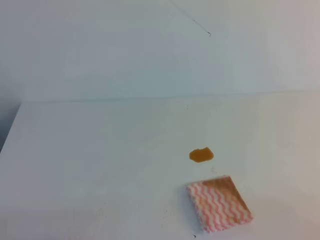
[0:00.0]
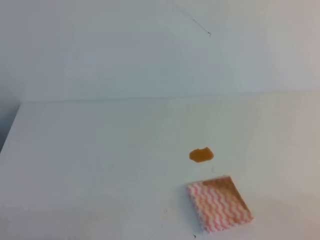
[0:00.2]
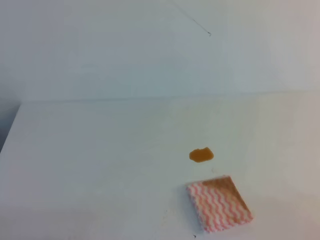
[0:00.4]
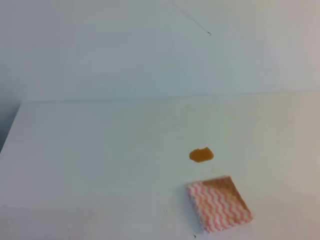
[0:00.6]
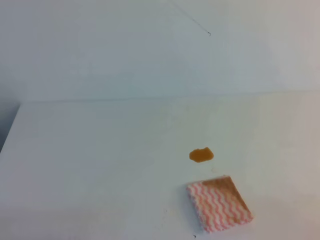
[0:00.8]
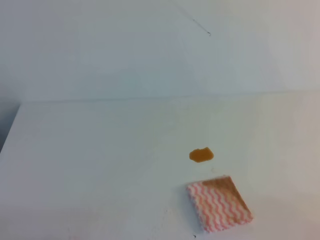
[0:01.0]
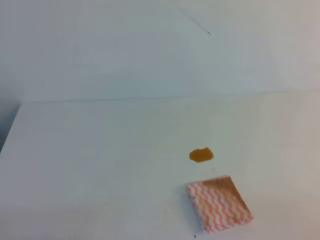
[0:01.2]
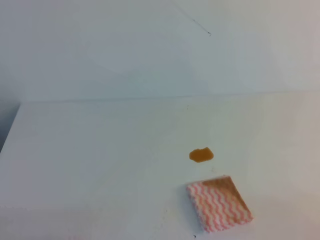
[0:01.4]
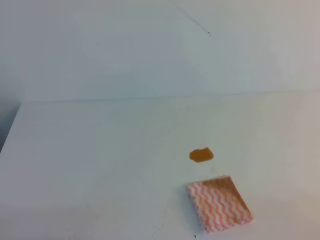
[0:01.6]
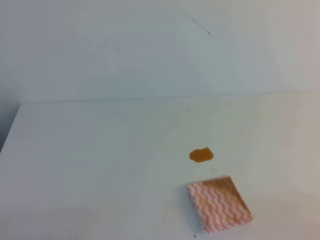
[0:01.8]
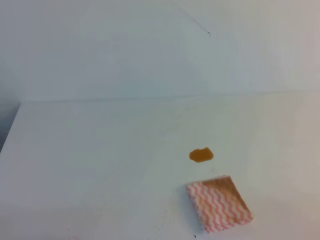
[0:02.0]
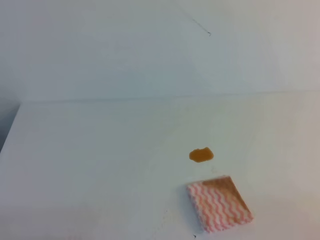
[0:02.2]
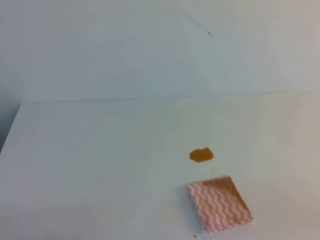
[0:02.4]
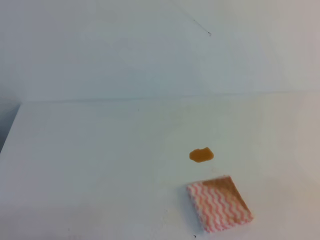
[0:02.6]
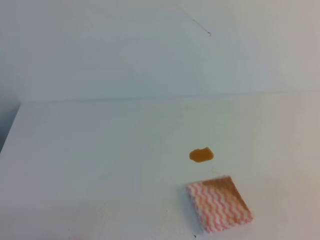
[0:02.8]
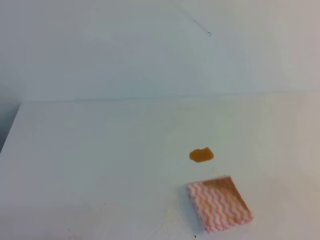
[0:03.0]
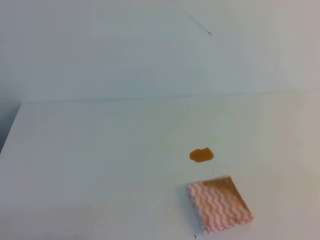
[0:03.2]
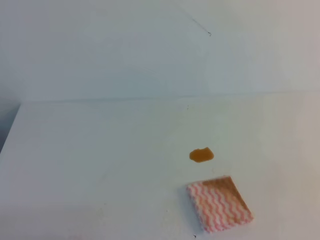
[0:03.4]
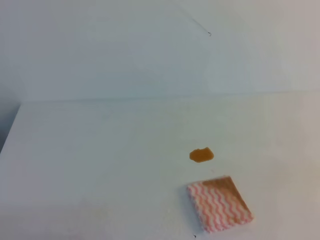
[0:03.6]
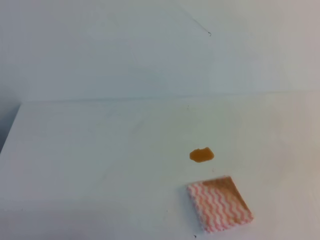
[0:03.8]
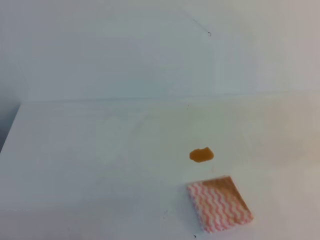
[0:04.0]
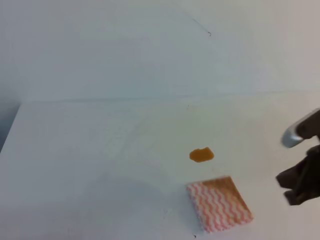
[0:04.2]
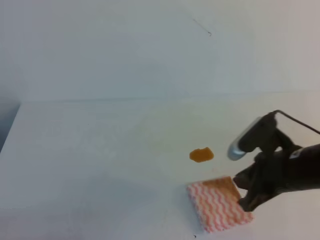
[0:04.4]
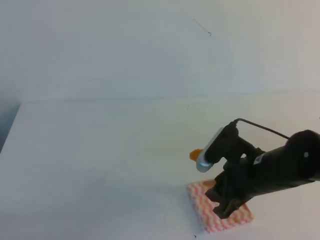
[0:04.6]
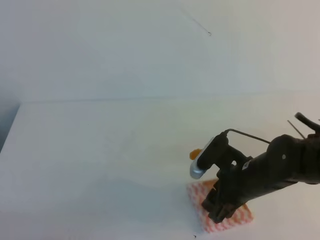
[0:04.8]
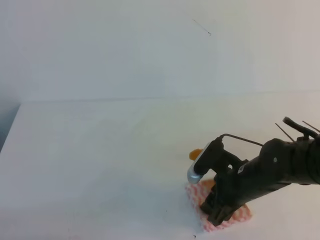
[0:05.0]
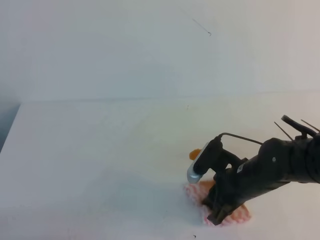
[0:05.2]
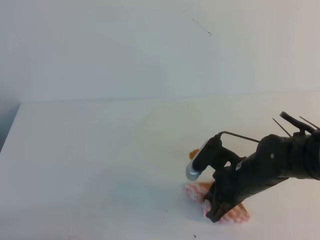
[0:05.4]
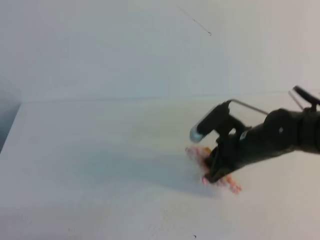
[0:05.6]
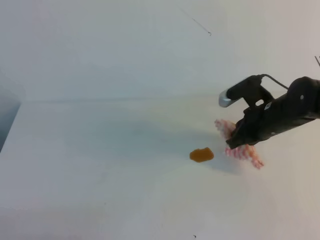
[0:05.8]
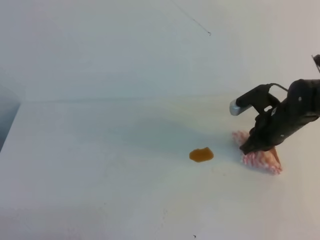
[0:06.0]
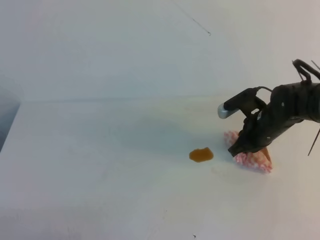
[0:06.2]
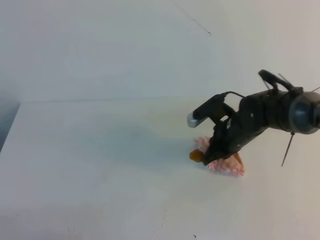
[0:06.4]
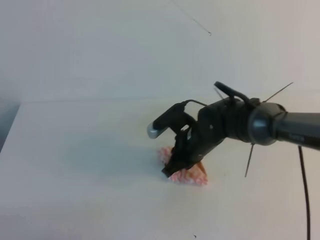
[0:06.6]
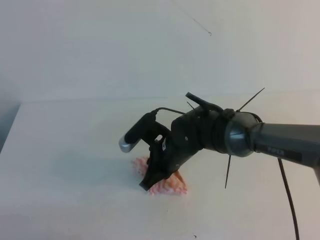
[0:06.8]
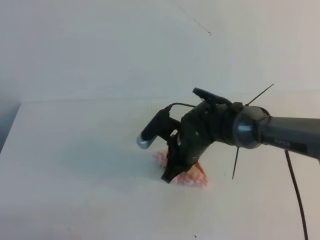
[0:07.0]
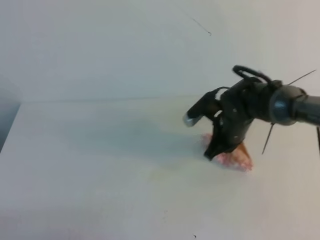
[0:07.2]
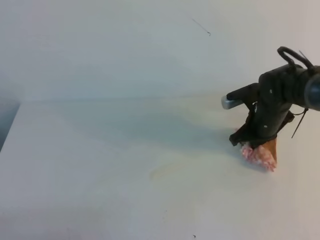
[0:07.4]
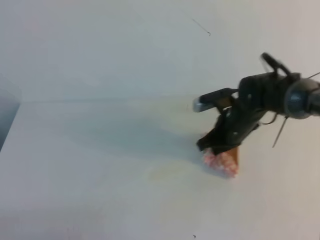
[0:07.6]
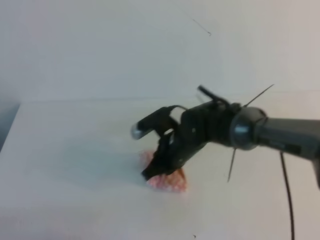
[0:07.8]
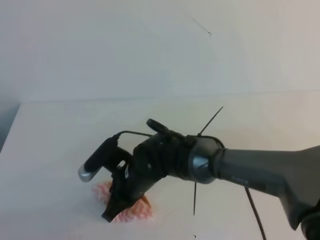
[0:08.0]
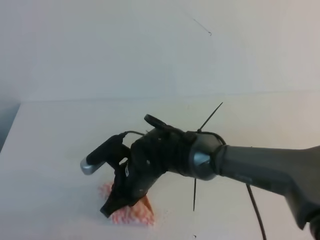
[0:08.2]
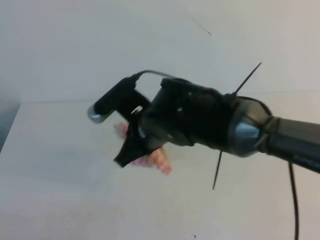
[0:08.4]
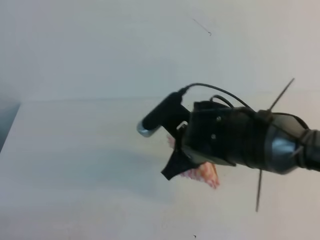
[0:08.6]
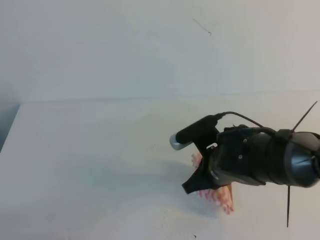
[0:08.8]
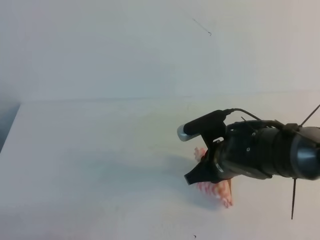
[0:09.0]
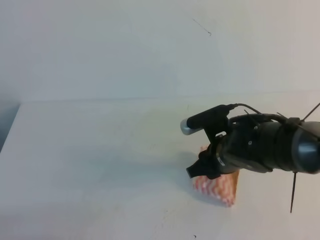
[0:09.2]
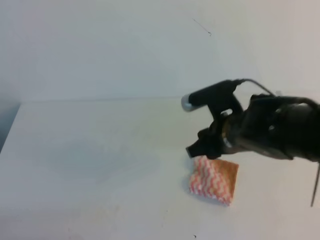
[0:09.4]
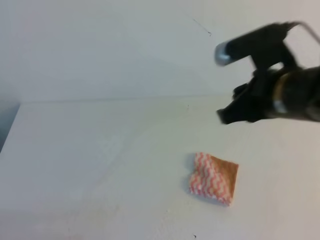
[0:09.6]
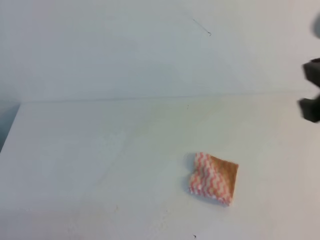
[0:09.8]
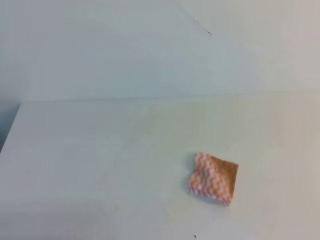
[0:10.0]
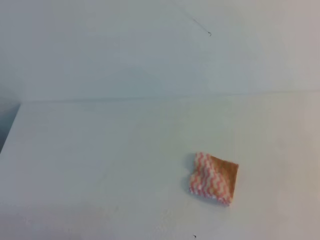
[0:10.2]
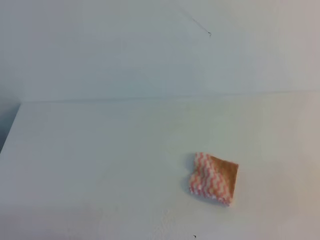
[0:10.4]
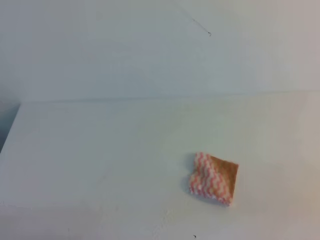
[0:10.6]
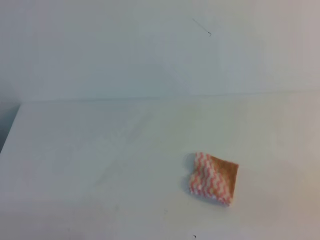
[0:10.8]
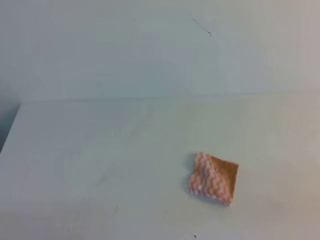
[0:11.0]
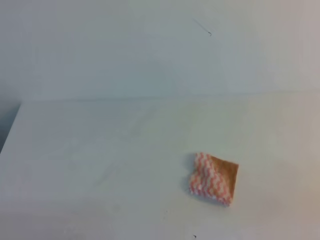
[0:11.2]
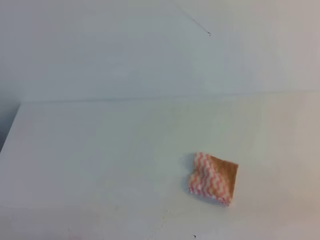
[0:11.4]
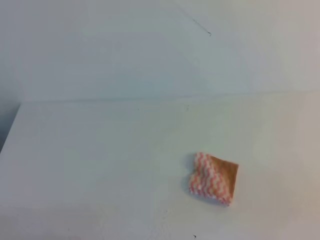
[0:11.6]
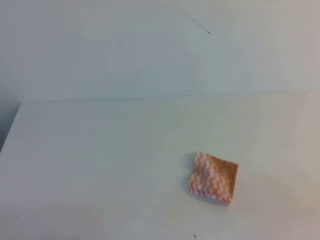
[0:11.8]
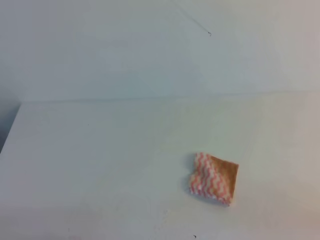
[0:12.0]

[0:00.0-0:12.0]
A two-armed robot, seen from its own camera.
0:00.0 to 0:01.6: Both grippers stay about where they are.
0:03.0 to 0:04.4: The right gripper moves forward and to the left, about 25 cm.
0:04.4 to 0:06.0: The right gripper heads forward, covering some 15 cm, and opens, then closes once more.
0:06.0 to 0:07.6: The right gripper goes some 10 cm to the left.
0:07.6 to 0:09.0: The right gripper heads backward, covering some 10 cm, and goes to the left and returns, some 15 cm each way.
0:09.0 to 0:10.4: The right gripper shifts some 35 cm backward, to the right and upward, and opens, then closes again.

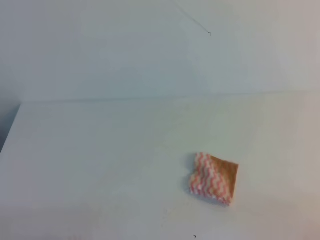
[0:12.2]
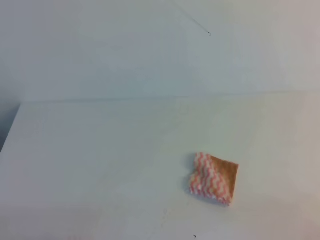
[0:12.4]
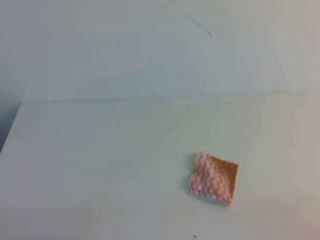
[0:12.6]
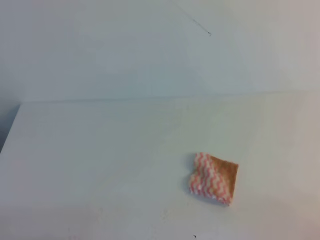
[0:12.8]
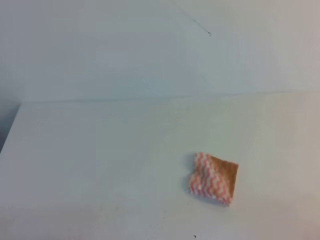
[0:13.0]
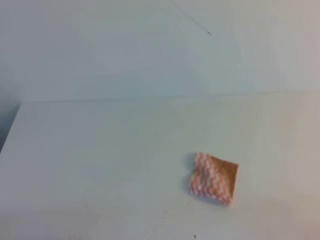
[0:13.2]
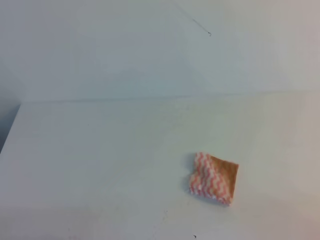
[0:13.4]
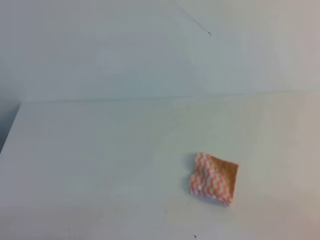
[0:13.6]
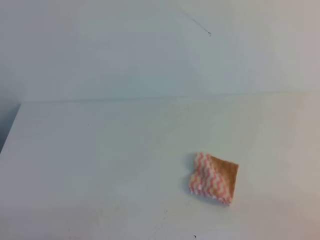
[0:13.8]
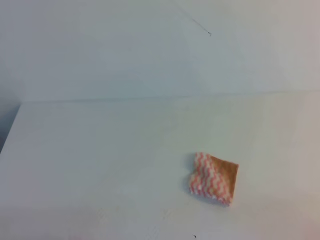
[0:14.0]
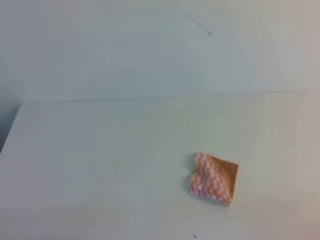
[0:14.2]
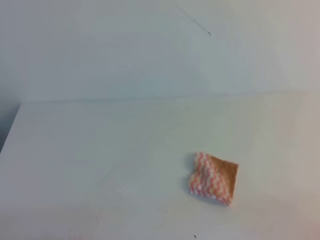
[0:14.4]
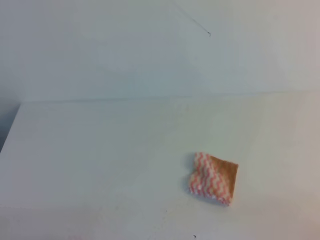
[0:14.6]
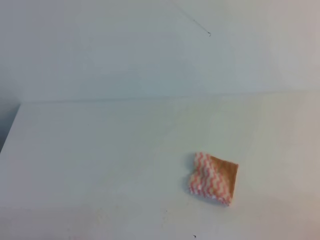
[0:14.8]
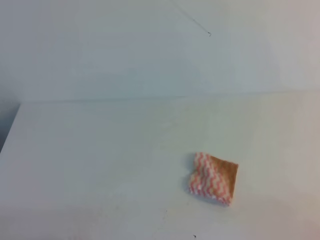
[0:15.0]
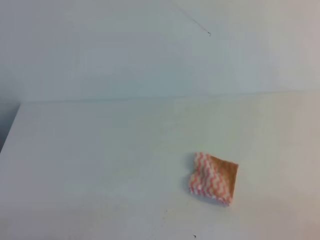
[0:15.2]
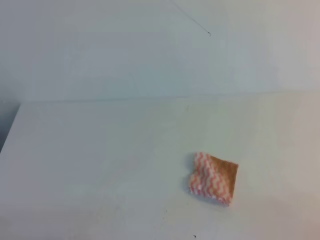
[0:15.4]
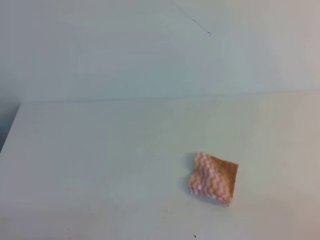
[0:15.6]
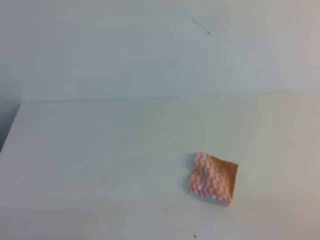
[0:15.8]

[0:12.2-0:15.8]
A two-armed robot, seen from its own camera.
0:14.0 to 0:15.8: Both grippers stay put.

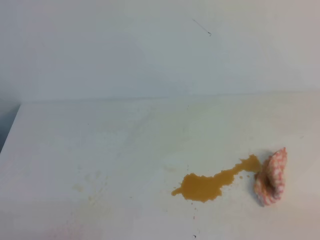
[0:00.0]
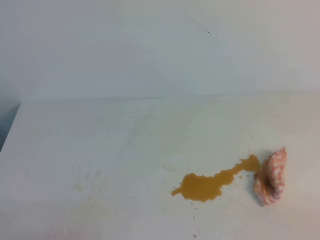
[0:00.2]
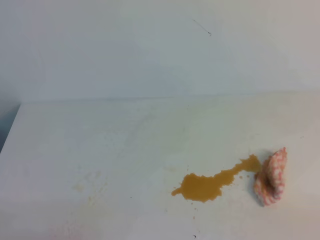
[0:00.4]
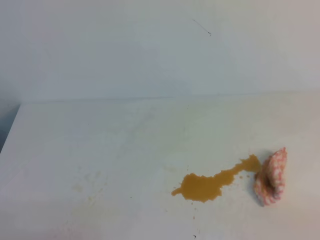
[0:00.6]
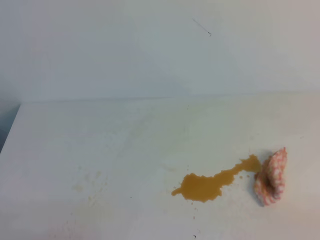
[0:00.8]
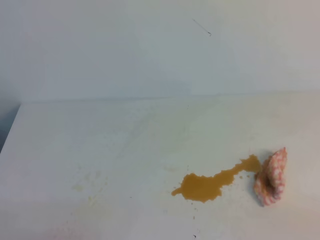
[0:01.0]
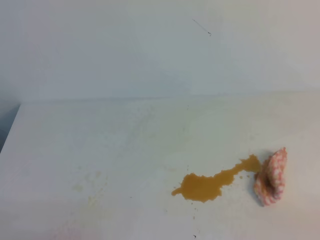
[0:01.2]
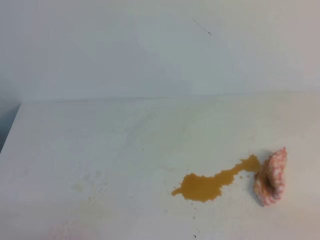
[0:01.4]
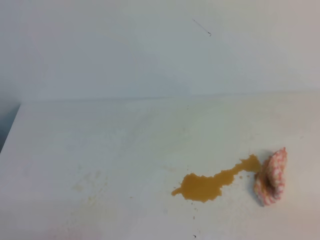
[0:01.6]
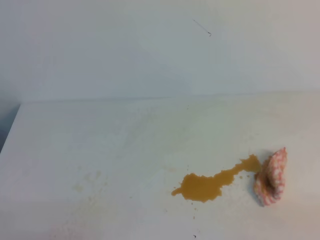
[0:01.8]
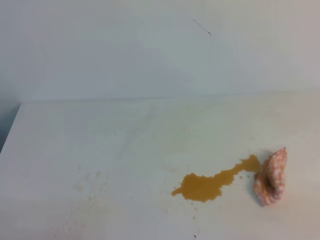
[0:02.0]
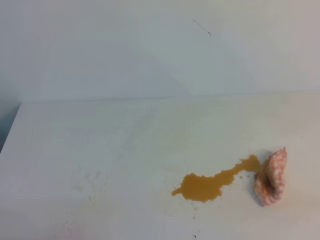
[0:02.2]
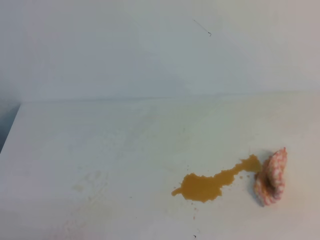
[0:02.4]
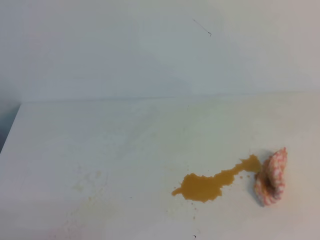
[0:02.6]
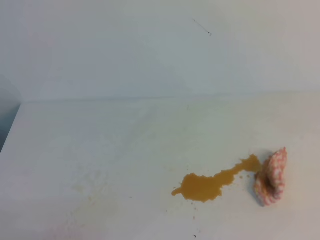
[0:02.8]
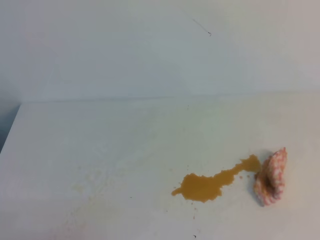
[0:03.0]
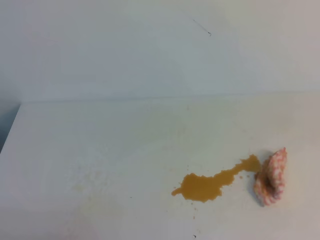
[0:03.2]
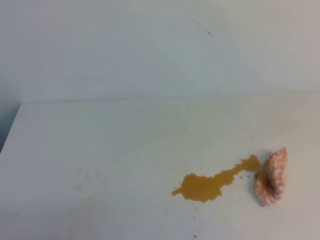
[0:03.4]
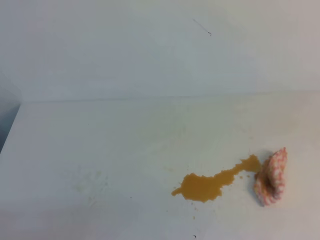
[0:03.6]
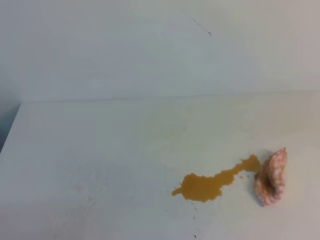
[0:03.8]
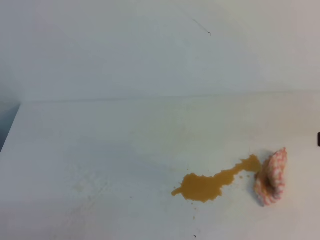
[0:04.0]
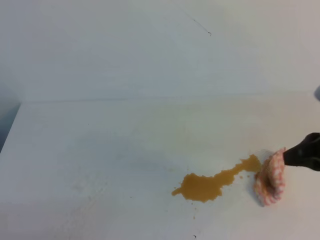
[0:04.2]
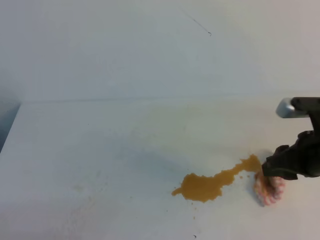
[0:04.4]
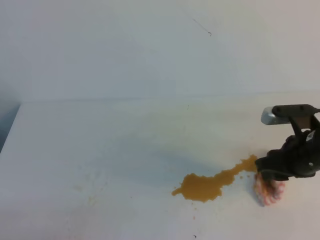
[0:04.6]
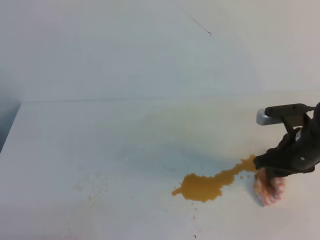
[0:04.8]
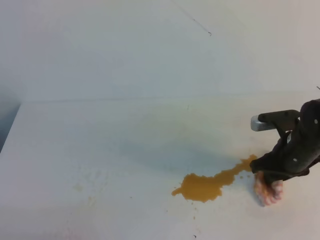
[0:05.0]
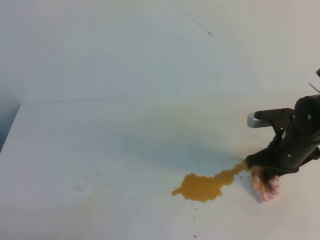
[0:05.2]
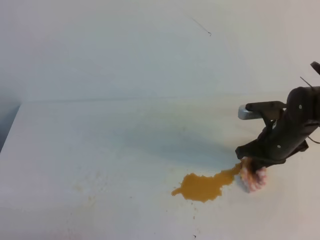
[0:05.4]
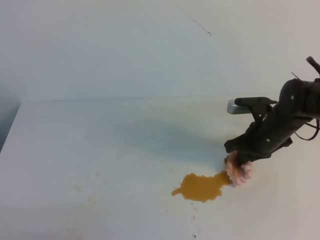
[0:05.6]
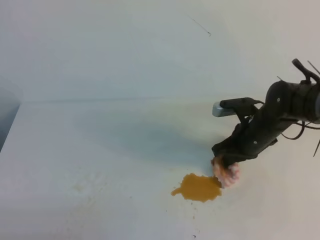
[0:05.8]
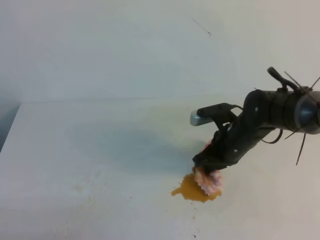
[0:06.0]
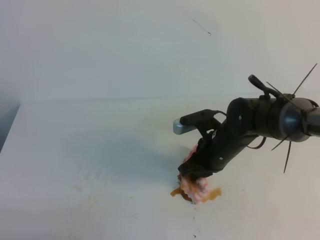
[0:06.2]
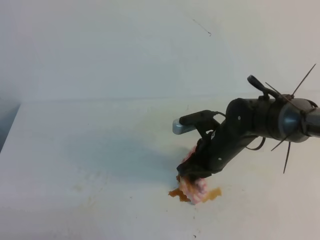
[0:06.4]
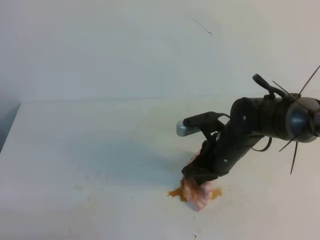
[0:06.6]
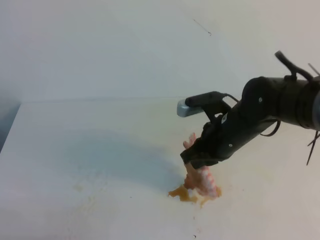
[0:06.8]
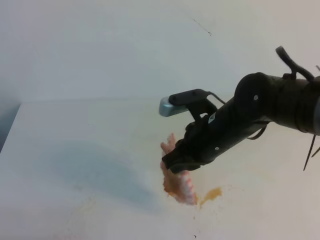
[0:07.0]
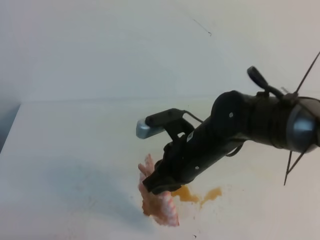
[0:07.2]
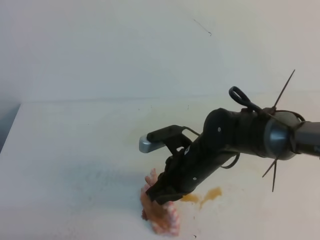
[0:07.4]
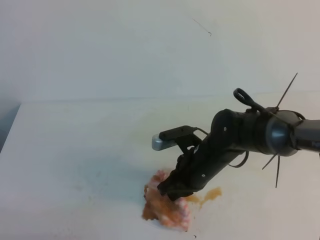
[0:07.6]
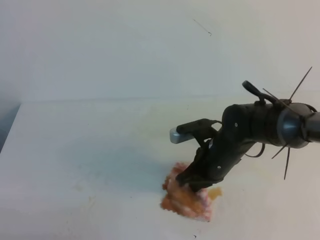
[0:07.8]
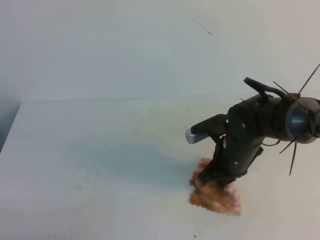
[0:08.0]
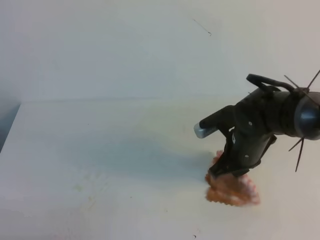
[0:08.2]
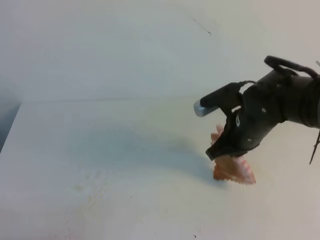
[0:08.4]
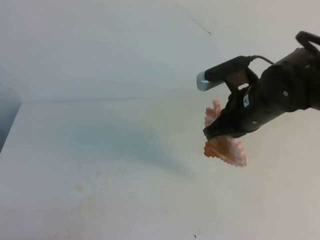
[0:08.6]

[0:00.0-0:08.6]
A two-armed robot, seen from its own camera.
0:00.0 to 0:01.4: Both grippers stay about where they are.
0:02.8 to 0:04.4: The right gripper heads forward, covering approximately 25 cm, and opens.
0:04.4 to 0:05.8: The right gripper travels forward, downward and to the left by some 15 cm, and closes its fingers.
0:05.8 to 0:07.2: The right gripper travels to the left, backward and upward by roughly 15 cm.
0:07.2 to 0:08.6: The right gripper moves to the right, some 10 cm.
